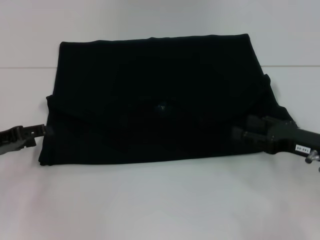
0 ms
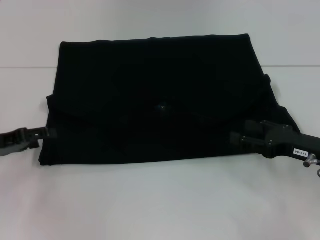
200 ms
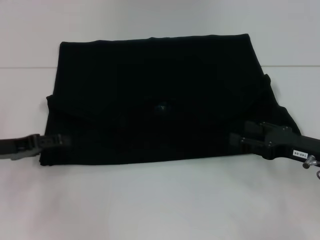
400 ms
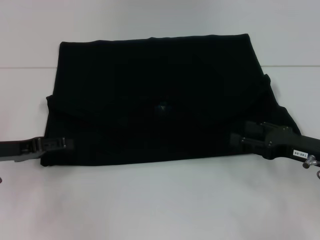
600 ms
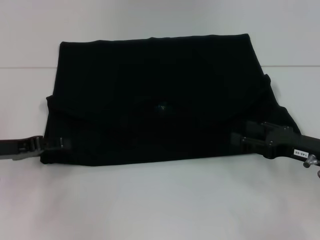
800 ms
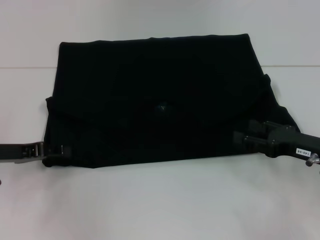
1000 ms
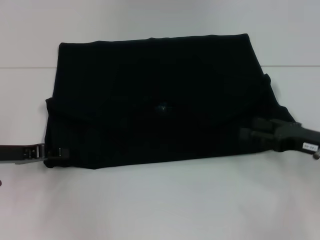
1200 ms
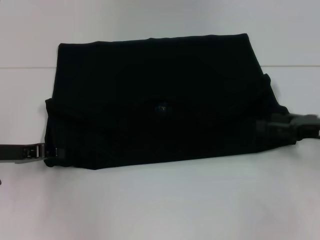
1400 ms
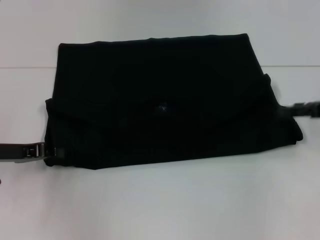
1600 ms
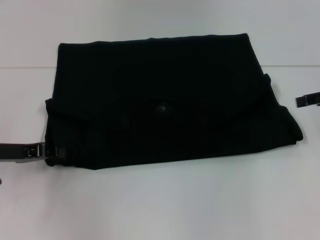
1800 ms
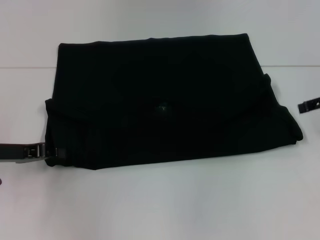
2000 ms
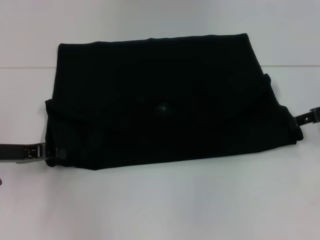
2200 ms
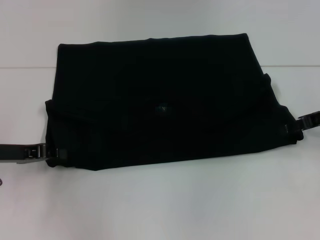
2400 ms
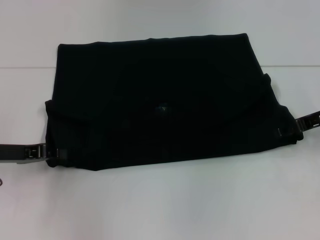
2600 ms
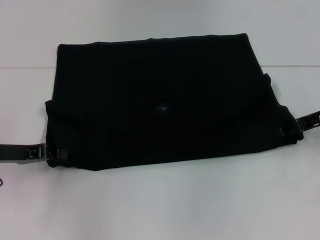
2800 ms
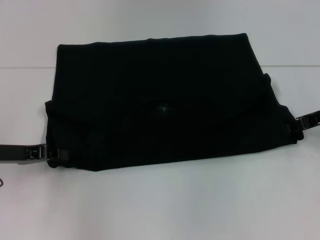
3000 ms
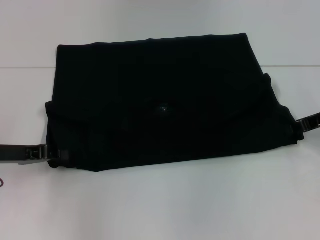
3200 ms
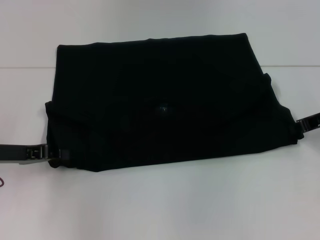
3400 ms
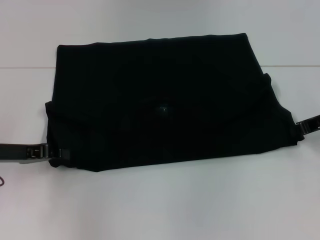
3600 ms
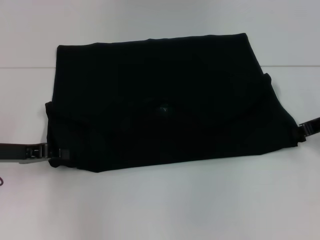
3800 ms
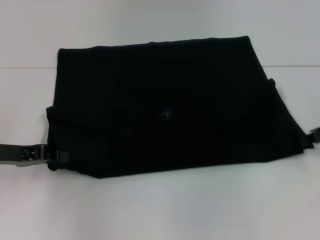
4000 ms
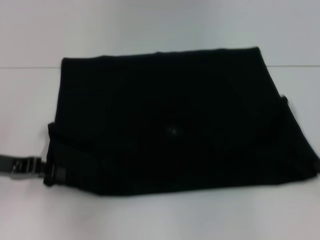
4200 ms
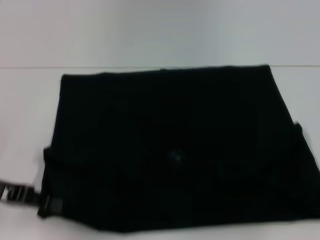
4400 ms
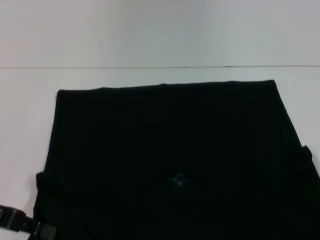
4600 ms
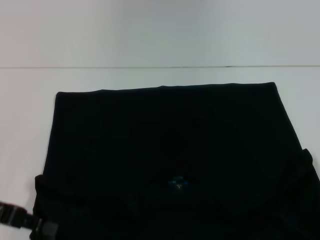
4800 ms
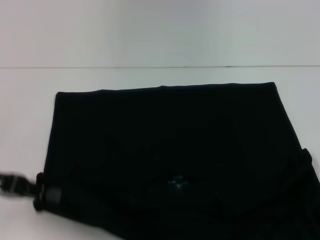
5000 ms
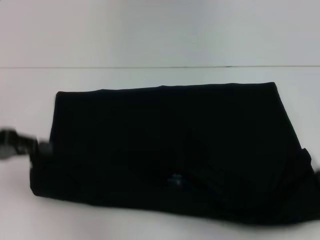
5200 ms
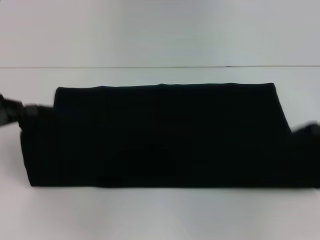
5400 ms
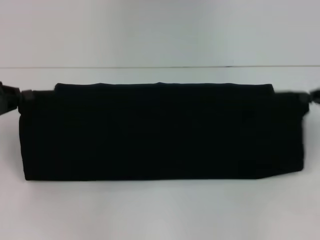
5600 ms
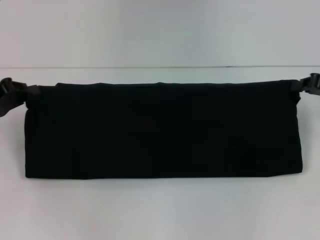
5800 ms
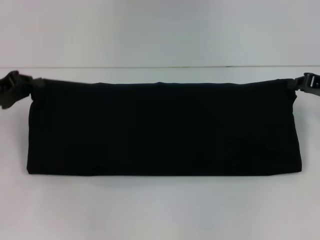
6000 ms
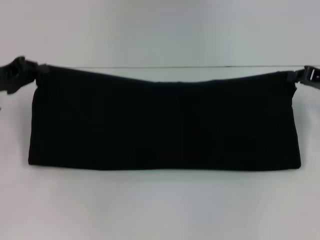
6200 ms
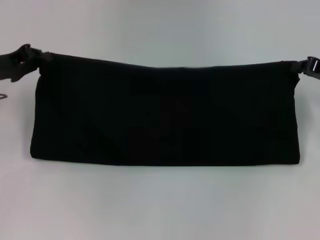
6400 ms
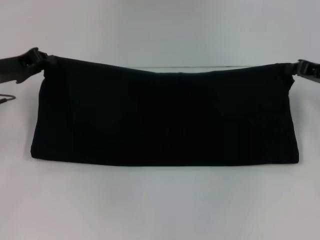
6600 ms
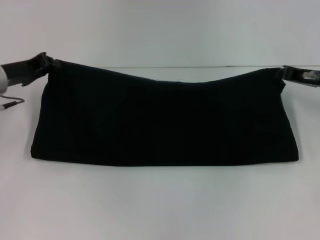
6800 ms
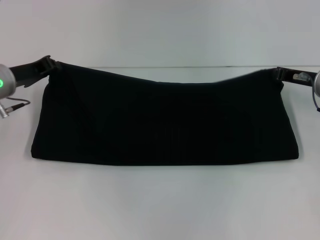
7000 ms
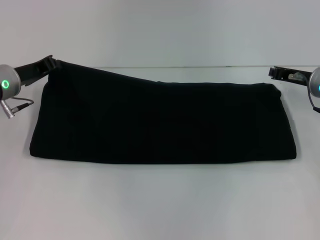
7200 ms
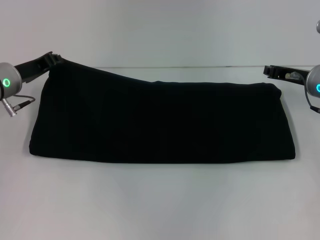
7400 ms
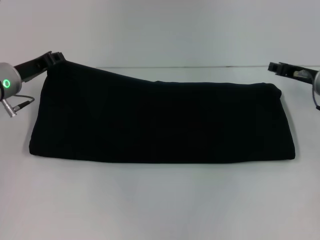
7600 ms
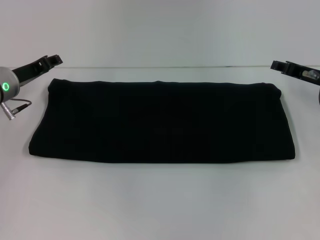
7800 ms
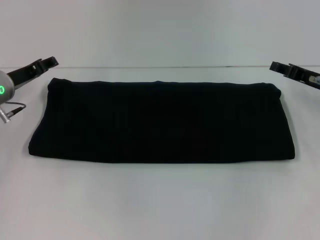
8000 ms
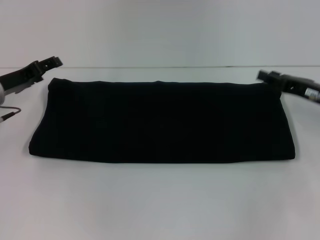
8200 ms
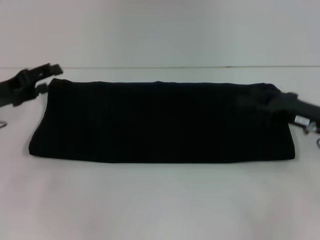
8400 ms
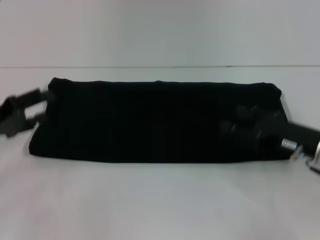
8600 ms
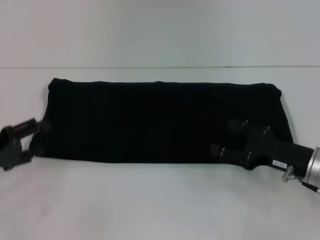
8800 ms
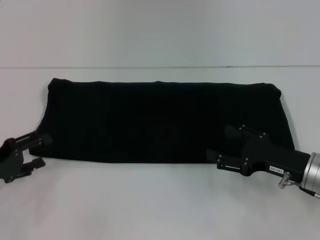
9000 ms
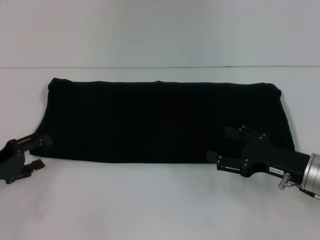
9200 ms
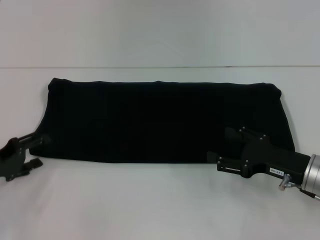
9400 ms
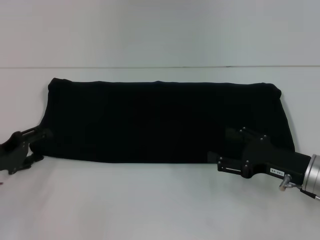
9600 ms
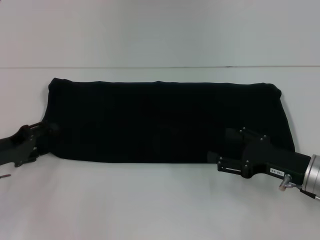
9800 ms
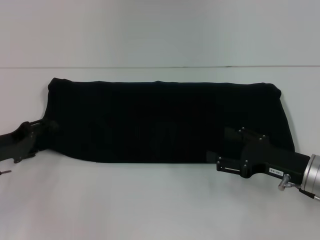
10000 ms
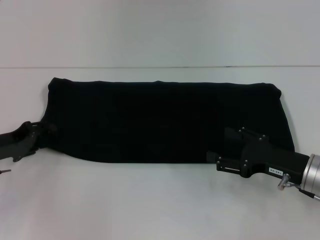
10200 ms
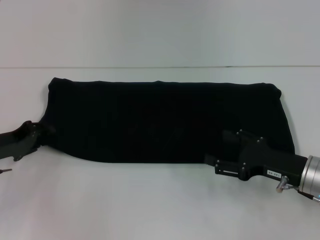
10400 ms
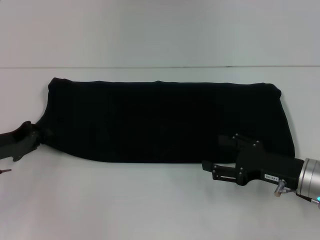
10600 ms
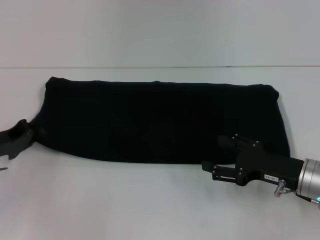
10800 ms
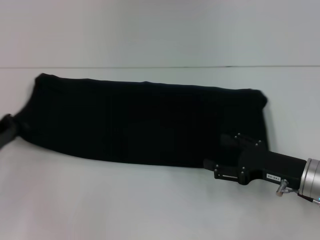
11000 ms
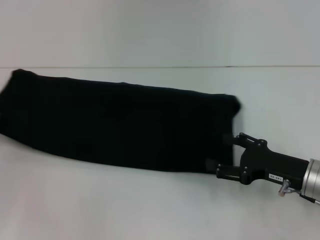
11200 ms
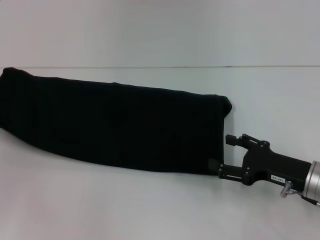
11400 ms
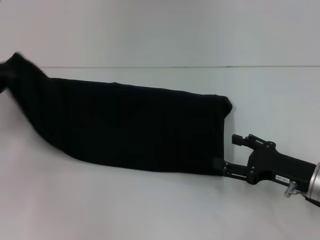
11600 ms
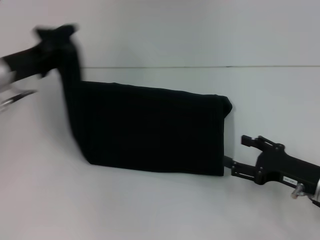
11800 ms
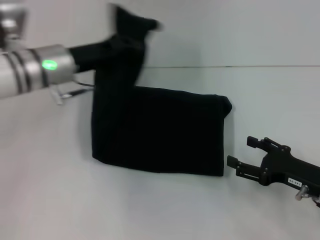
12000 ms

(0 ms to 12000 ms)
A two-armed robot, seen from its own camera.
Step, 0 ms - 4400 ms: Pull the clothes with your left hand.
Step, 0 ms - 4400 ms: Pull the clothes with your right hand.
Step, 4600 ms - 7800 ms: Fold the clothes with your right hand.
0 ms - 1600 ms: The right gripper shifts roughly 10 cm upward, to the right and forward, while the left gripper closes up.
3000 ms - 4400 ms: The right gripper is displaced backward by some 5 cm, and closes. Meanwhile the left gripper ends up about 5 cm from where it was.
4400 ms - 6000 ms: The grippers both shift forward by roughly 10 cm.
6000 ms - 7600 ms: The right gripper heads to the left, covering roughly 5 cm, while the left gripper shifts about 10 cm to the right and forward.
7600 ms - 9000 ms: The left gripper goes roughly 15 cm backward and to the left, and opens its fingers; the right gripper moves backward and downward, roughly 15 cm, and opens its fingers.
9000 ms - 10400 ms: The left gripper goes some 5 cm forward.
10400 ms - 12000 ms: The left gripper is displaced to the right, upward and forward by roughly 20 cm, and closes up.

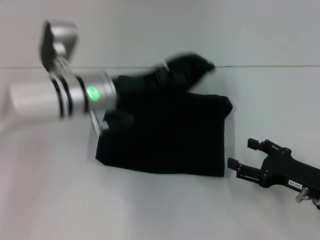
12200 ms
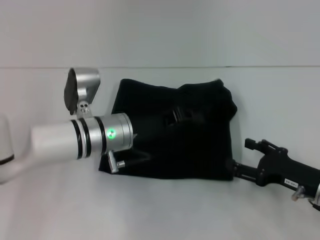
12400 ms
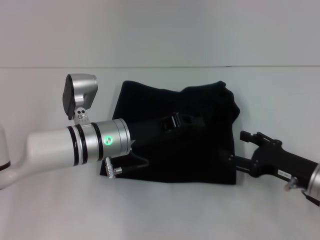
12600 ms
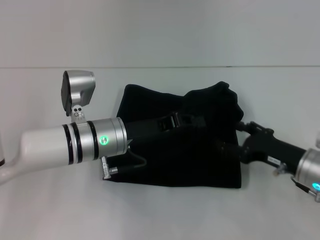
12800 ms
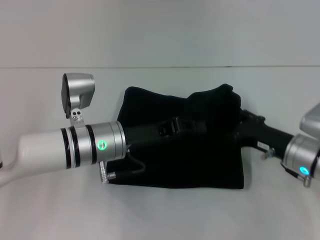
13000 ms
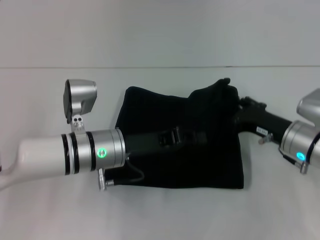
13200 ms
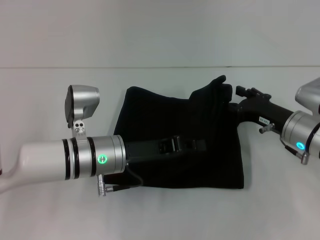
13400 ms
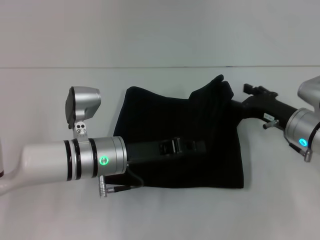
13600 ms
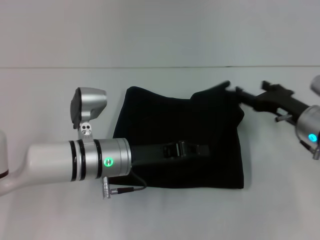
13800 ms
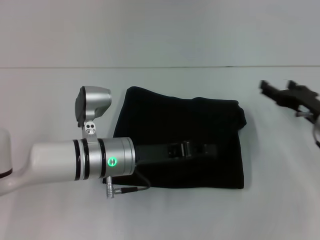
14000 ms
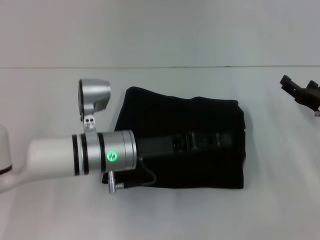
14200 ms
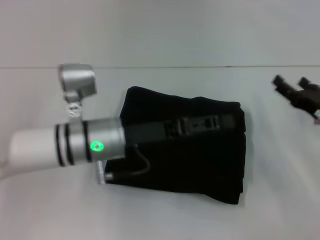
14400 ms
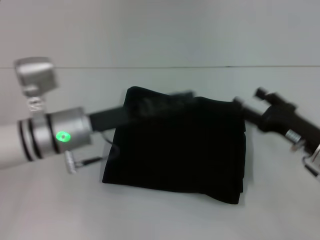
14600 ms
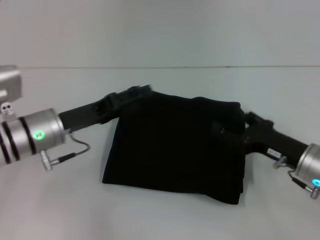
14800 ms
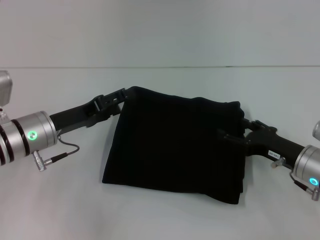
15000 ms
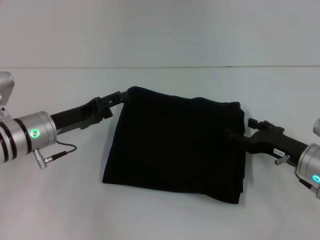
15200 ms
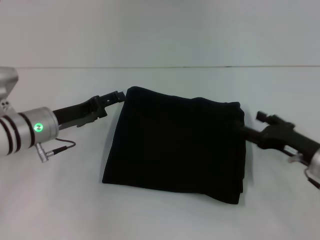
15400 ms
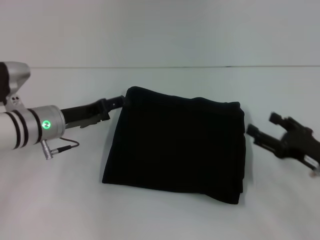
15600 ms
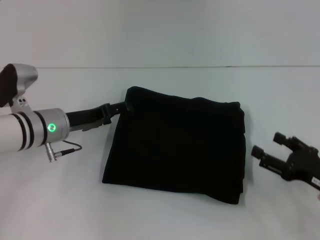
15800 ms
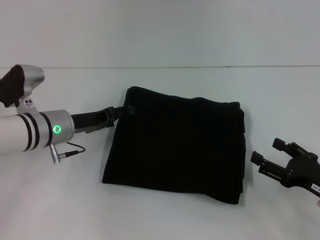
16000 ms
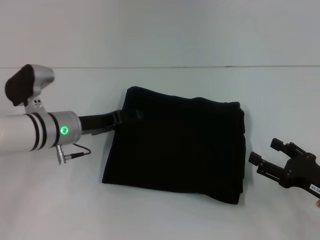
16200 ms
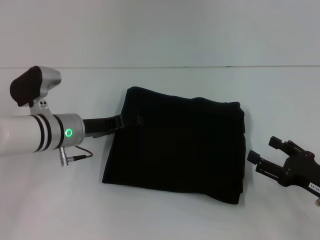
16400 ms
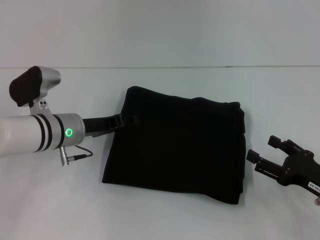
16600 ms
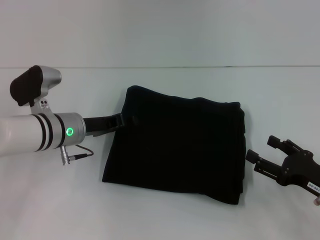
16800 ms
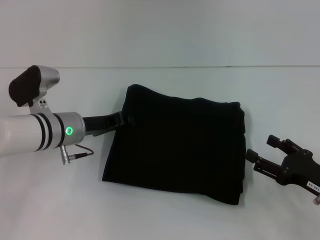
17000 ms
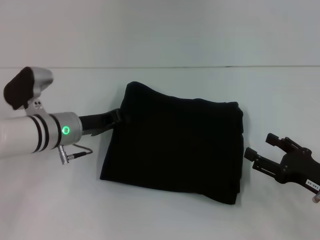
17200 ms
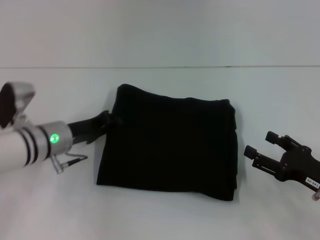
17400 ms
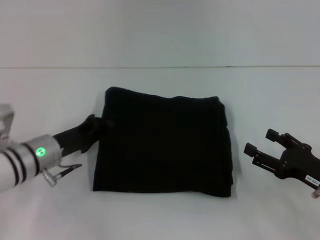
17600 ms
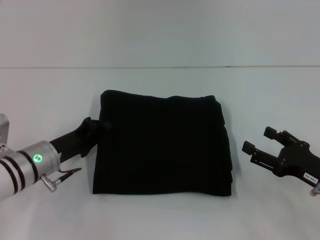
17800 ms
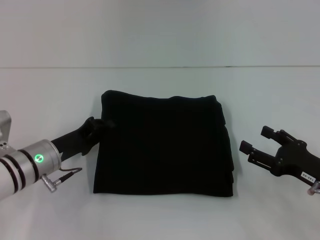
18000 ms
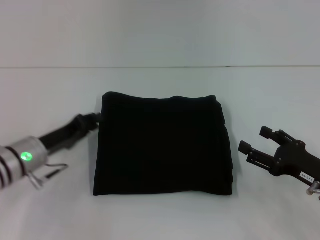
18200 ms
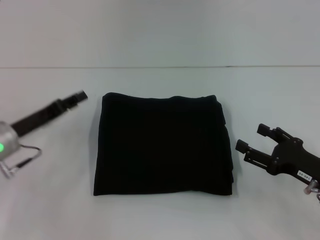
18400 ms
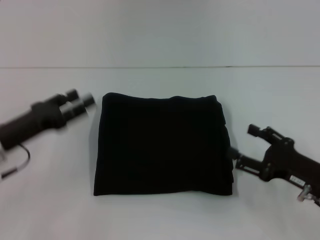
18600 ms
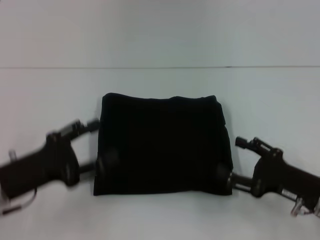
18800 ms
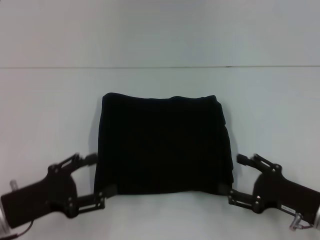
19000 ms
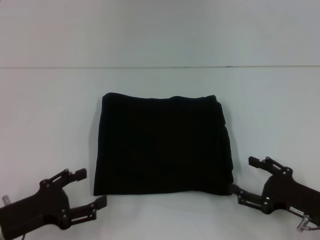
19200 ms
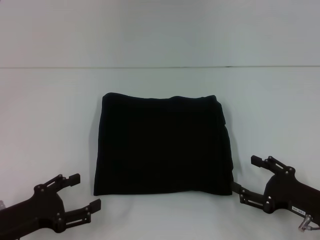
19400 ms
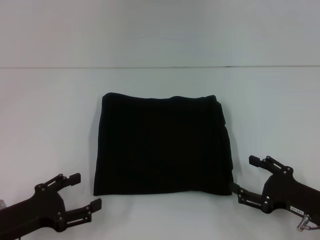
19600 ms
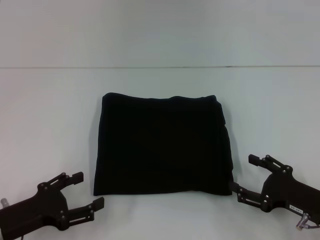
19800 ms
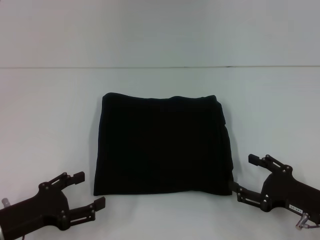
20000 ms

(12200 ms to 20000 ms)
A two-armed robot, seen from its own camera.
Step, 12200 ms - 14400 ms: Fold the clothes with your left hand.
12200 ms - 13800 ms: The left gripper is displaced backward and downward by roughly 10 cm. Meanwhile the right gripper goes approximately 10 cm forward.
13800 ms - 15400 ms: The right gripper goes roughly 5 cm backward. The left gripper heads to the left, covering some 10 cm, and opens its fingers.
15400 ms - 16800 ms: The right gripper moves backward, about 5 cm.
16800 ms - 18400 ms: The left gripper goes roughly 10 cm to the left and backward, and closes its fingers.
18400 ms - 20000 ms: The left gripper goes roughly 10 cm backward, and opens its fingers.

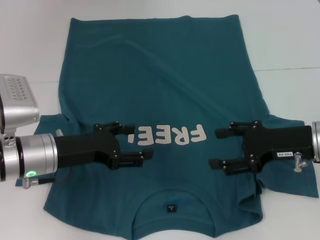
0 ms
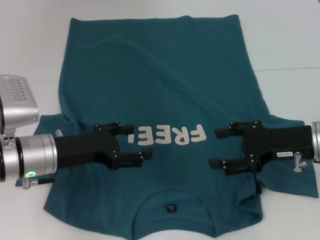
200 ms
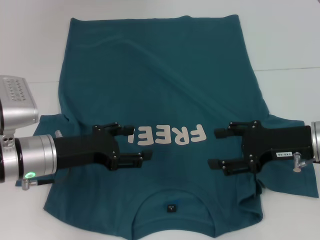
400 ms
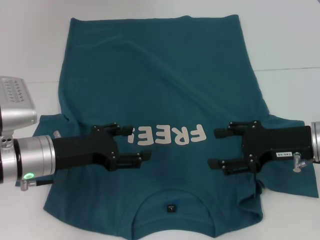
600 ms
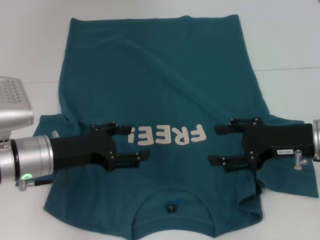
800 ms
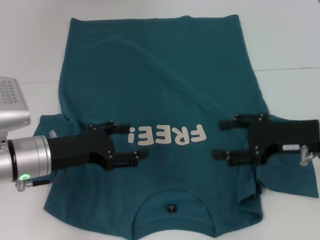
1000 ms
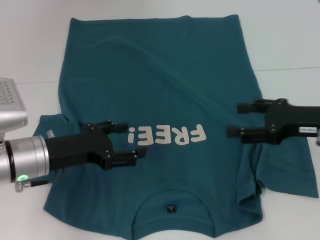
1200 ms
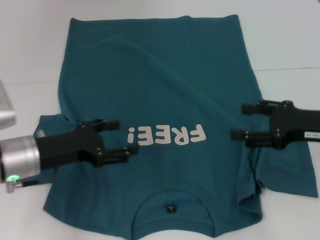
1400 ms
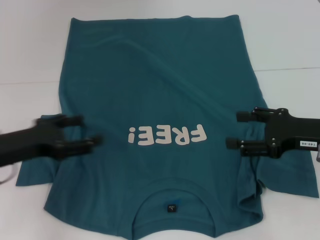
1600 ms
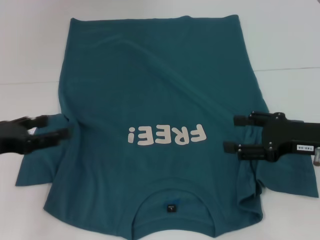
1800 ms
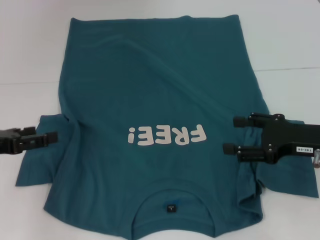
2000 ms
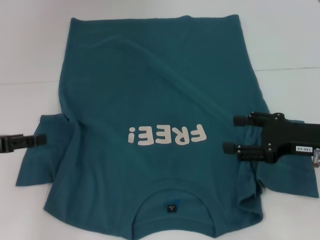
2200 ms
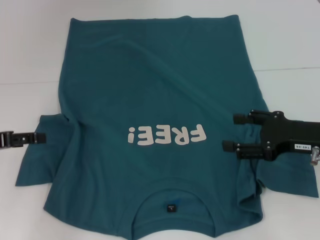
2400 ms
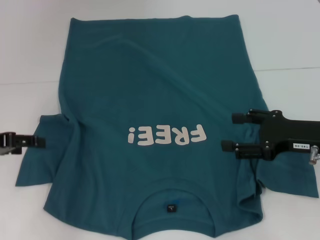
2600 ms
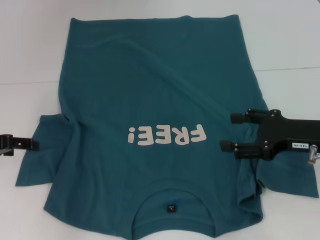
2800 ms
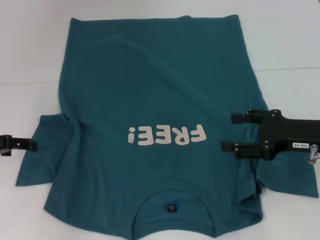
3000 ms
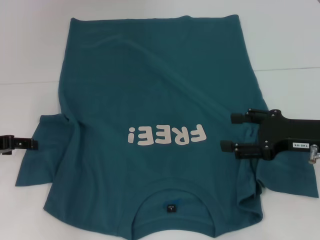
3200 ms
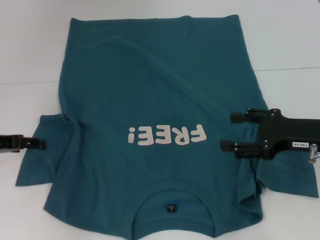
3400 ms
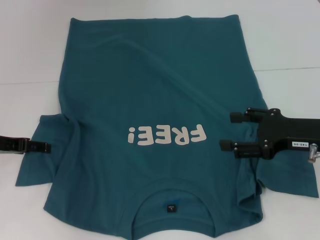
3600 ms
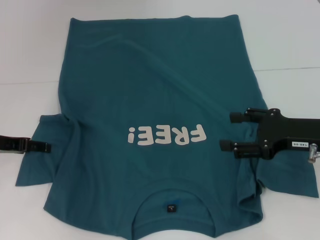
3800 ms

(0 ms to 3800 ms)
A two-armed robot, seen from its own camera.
0 ms - 1200 ms: The grippers stay close to where they were, moving slightly.
1200 ms - 2600 ms: The left gripper heads to the left, covering roughly 15 cm.
2600 ms - 3800 ms: The grippers make only small movements.
